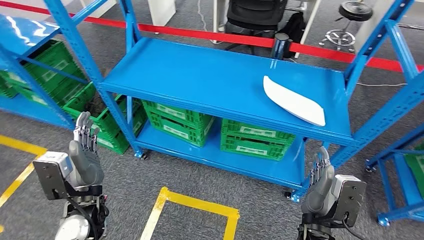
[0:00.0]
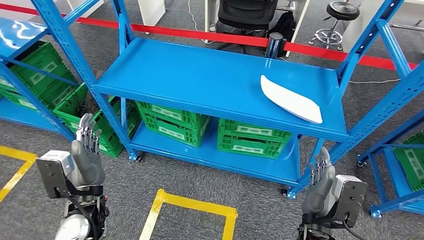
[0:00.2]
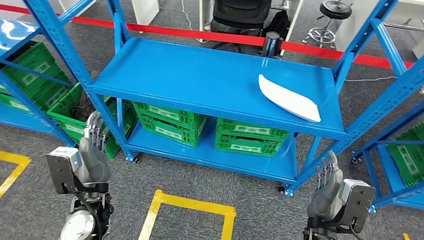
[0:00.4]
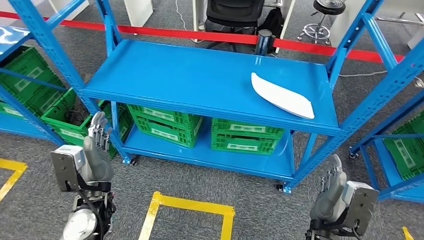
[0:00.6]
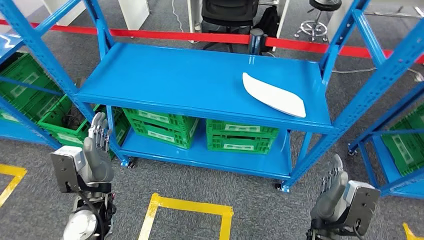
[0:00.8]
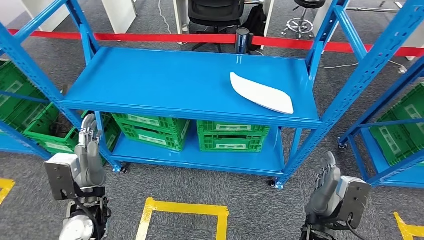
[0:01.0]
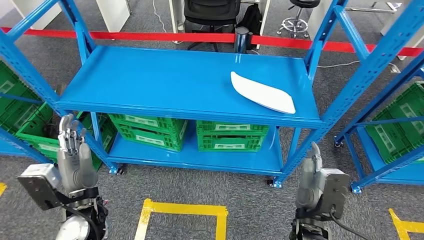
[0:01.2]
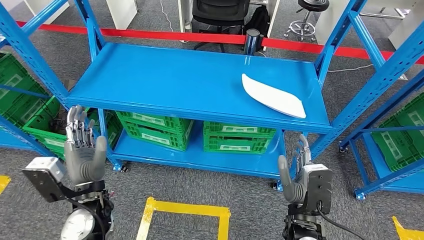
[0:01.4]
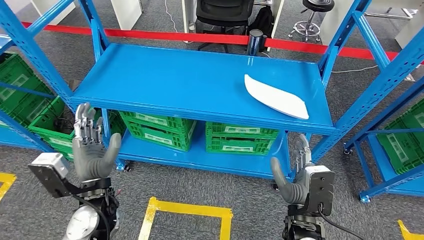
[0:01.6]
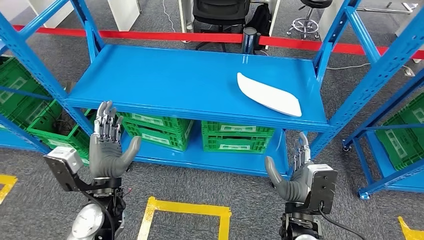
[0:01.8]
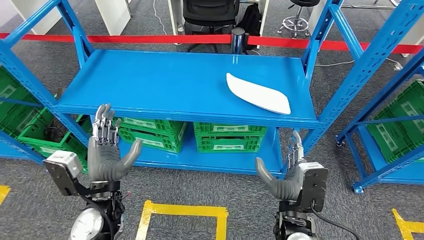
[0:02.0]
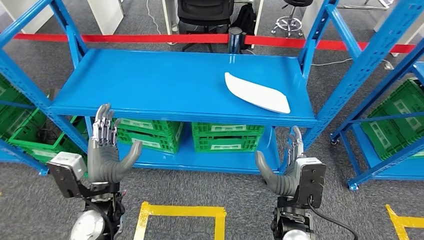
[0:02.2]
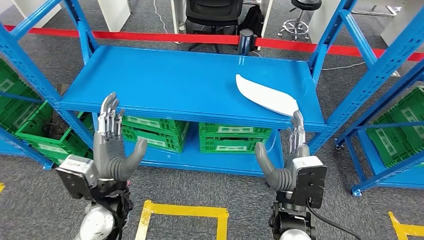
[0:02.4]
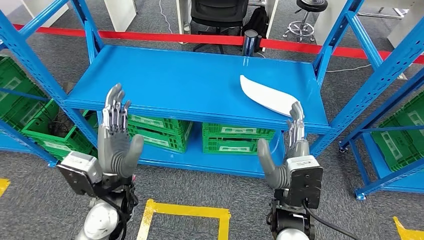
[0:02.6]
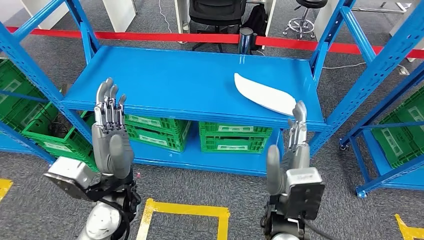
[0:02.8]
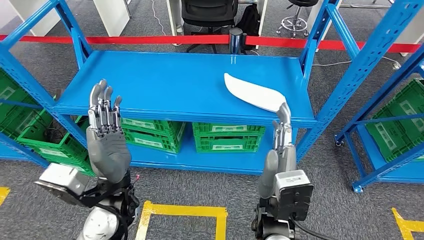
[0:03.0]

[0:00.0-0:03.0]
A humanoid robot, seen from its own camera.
Step, 0:00.0 to 0:03.0: Move to the initial position at the workbench.
